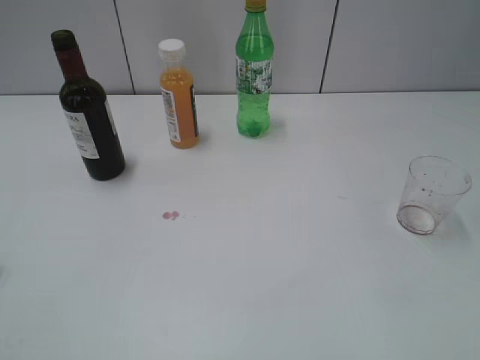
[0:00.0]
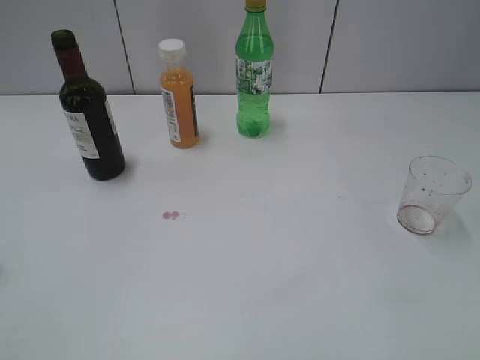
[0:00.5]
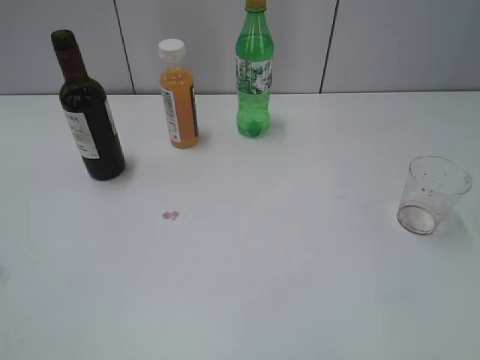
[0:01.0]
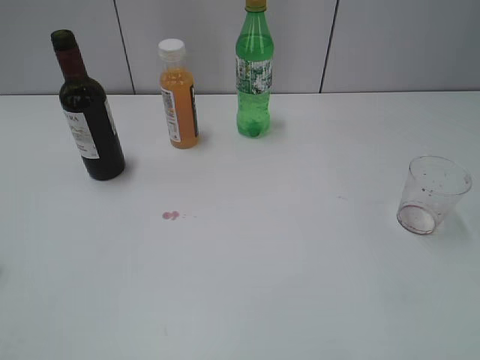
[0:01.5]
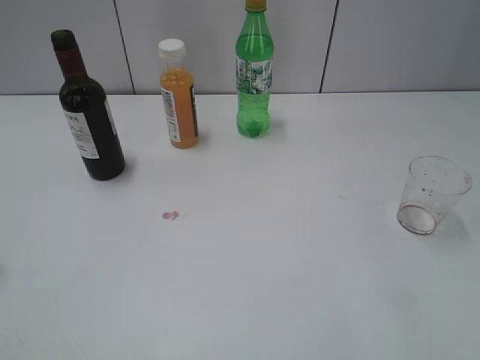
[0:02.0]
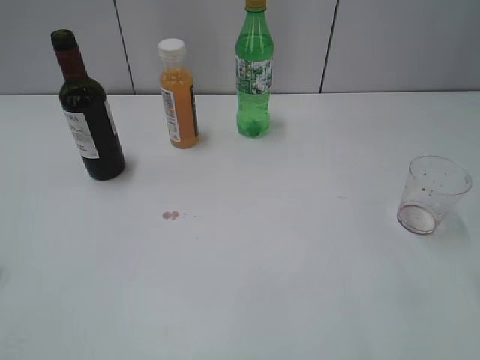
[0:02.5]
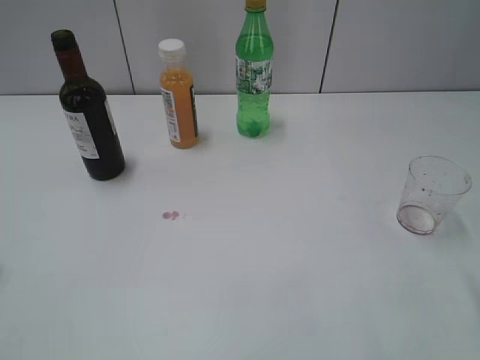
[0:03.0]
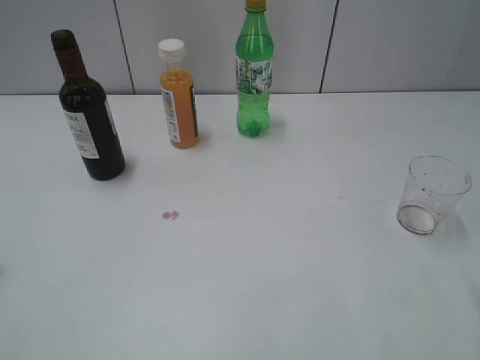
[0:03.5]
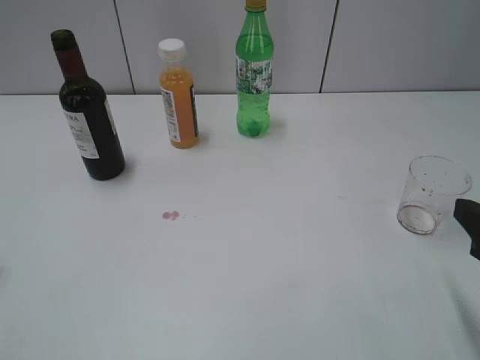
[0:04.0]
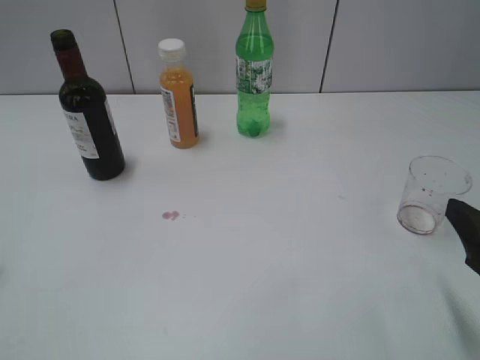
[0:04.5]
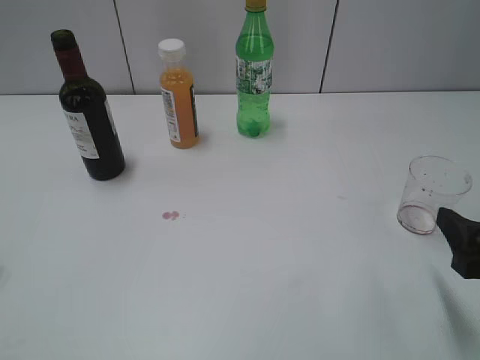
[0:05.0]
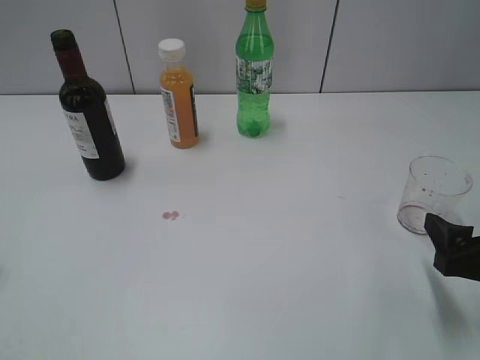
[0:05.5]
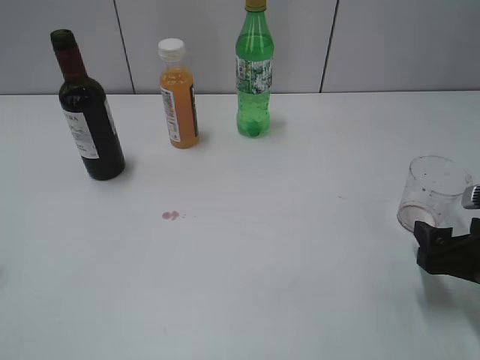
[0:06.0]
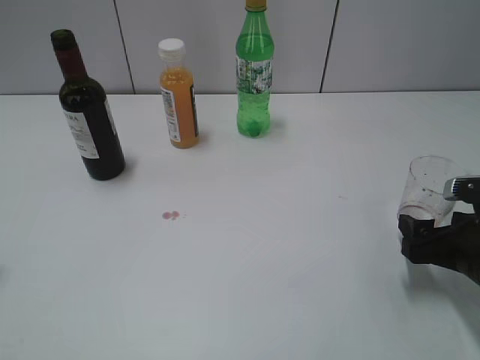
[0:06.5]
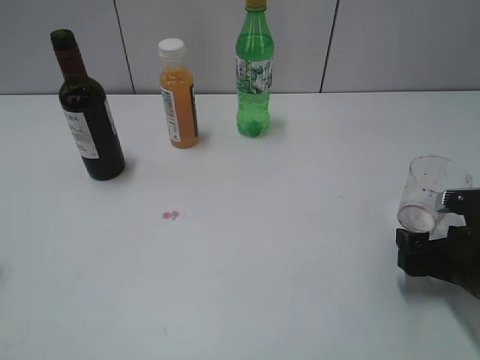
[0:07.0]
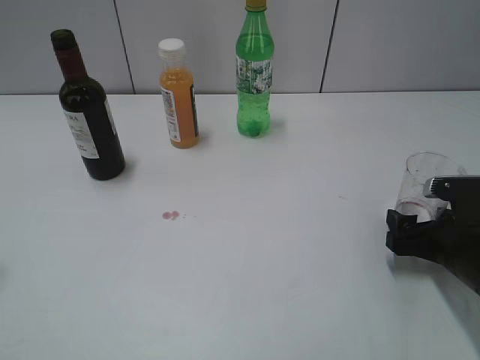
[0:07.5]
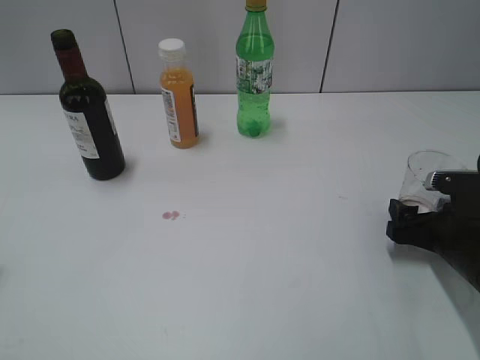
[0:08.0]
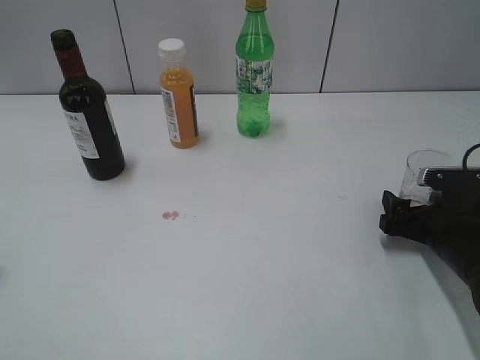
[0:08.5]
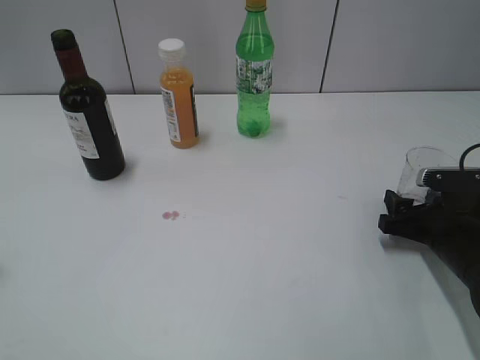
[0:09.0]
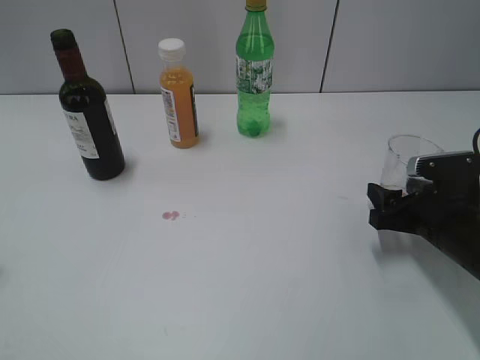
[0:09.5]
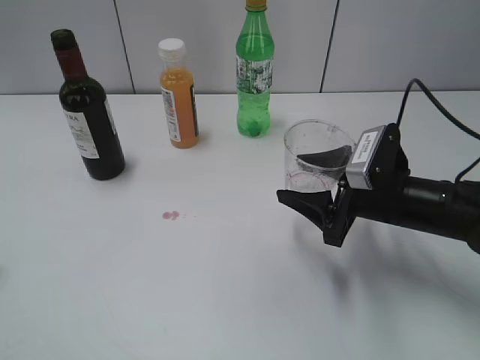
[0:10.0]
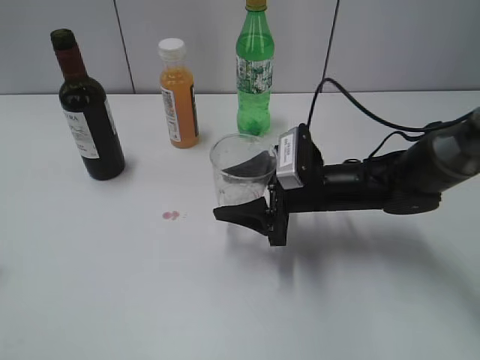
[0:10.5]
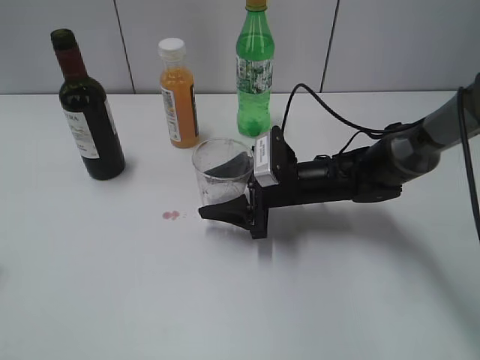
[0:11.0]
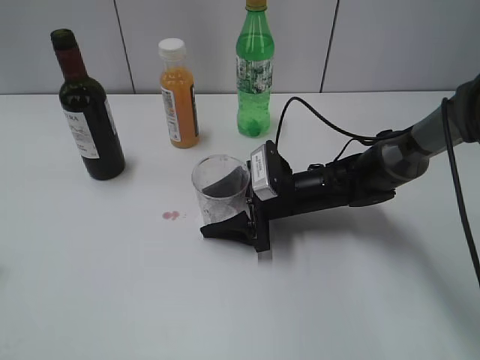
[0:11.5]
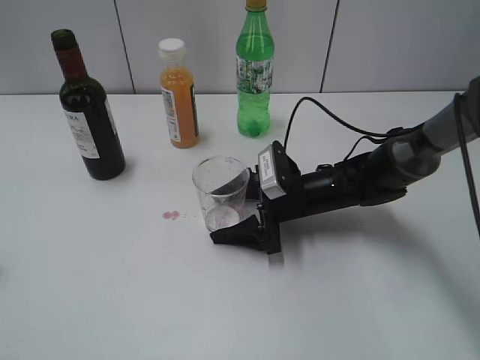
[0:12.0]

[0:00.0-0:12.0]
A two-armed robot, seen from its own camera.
Step, 0:01.0 to 0:09.0: Grasp the transparent cup with right gripper.
0:02.0 to 0:04.0: The right gripper moves downward, about 10 cm.
0:04.0 to 0:06.0: The right gripper is displaced downward by roughly 10 cm, and opens.
0:06.0 to 0:08.0: The right gripper is displaced forward by some 5 cm.
0:08.0 to 0:10.0: The right gripper travels to the left and upward by some 10 cm, and closes its fingers.
0:10.0 to 0:12.0: The right gripper is displaced to the left, downward and forward by roughly 15 cm, and opens its fingers.

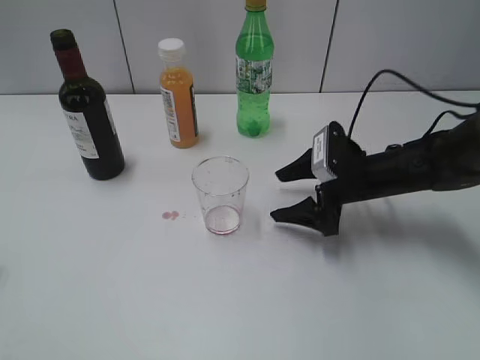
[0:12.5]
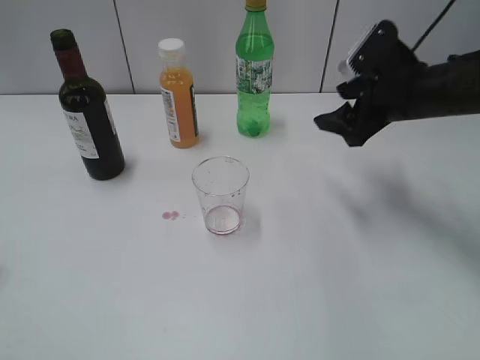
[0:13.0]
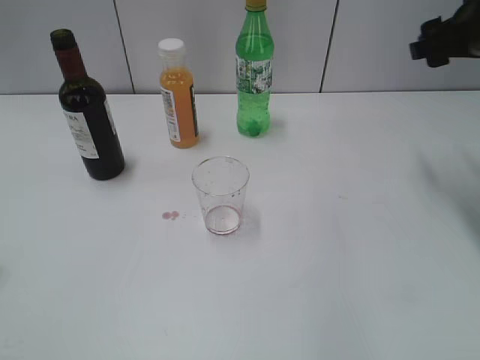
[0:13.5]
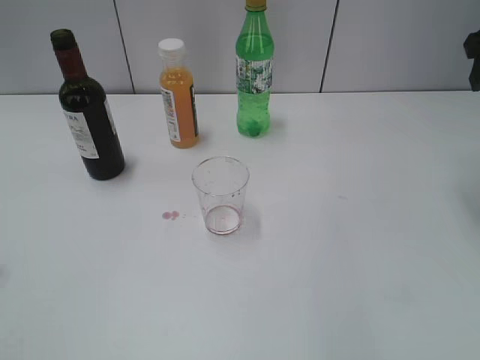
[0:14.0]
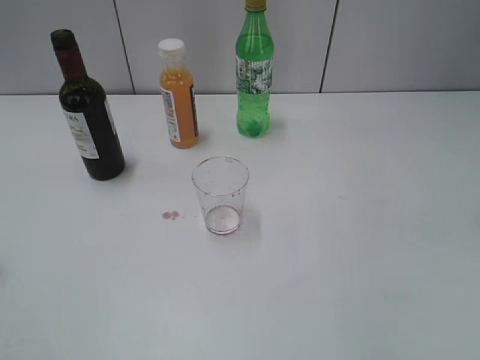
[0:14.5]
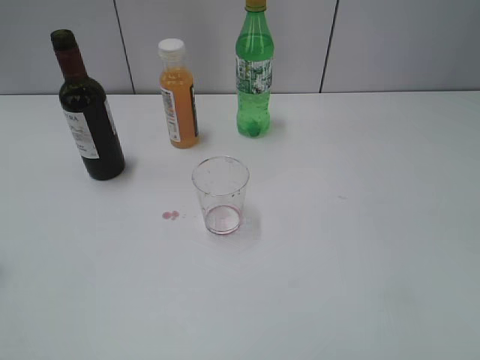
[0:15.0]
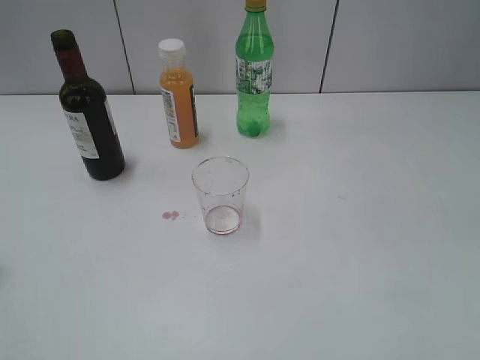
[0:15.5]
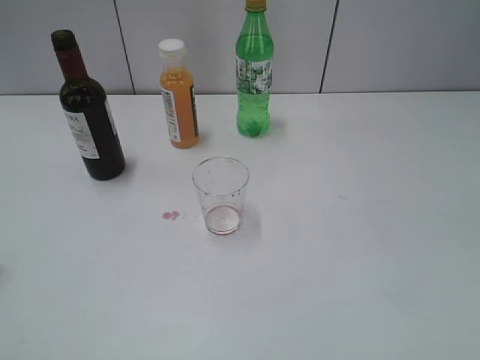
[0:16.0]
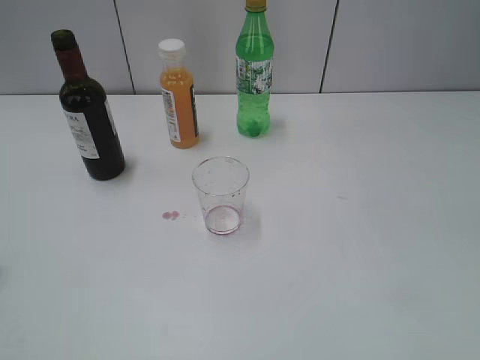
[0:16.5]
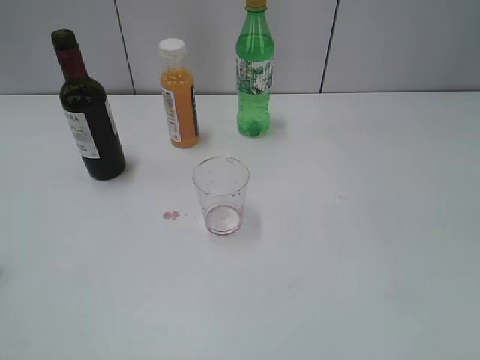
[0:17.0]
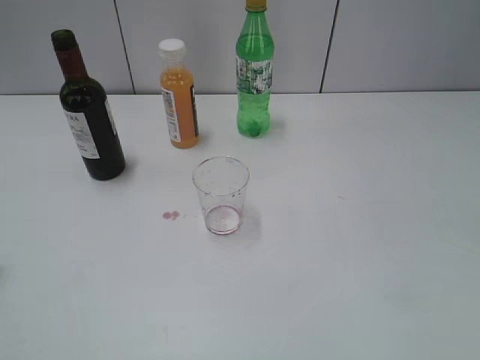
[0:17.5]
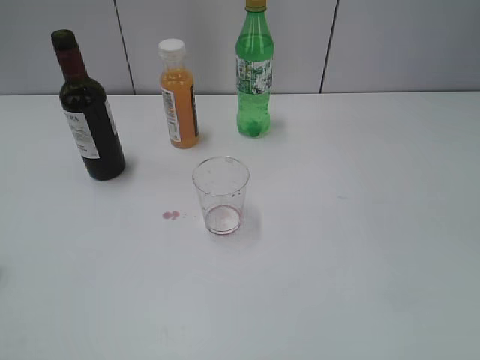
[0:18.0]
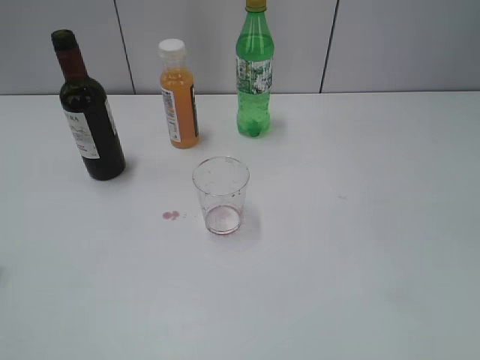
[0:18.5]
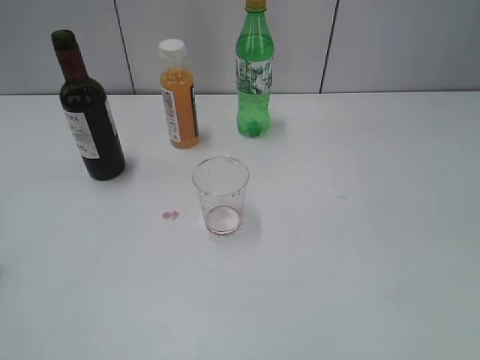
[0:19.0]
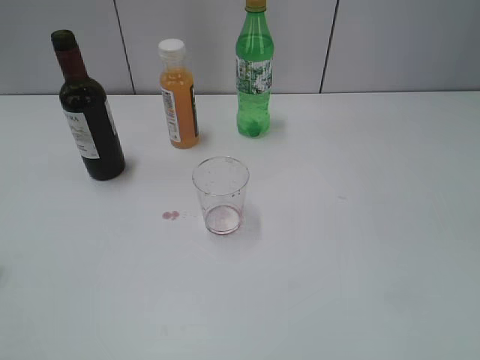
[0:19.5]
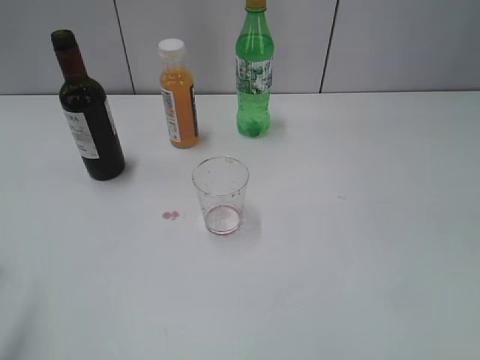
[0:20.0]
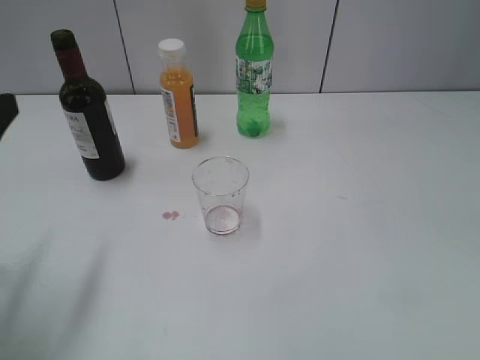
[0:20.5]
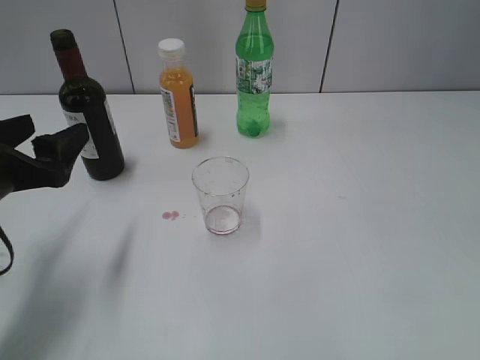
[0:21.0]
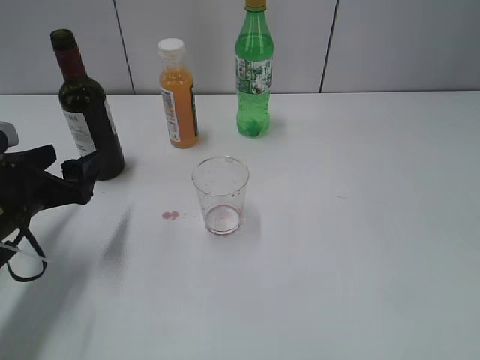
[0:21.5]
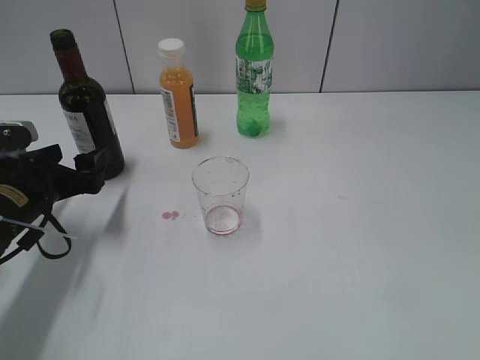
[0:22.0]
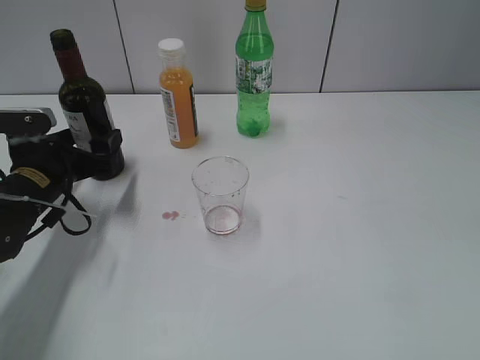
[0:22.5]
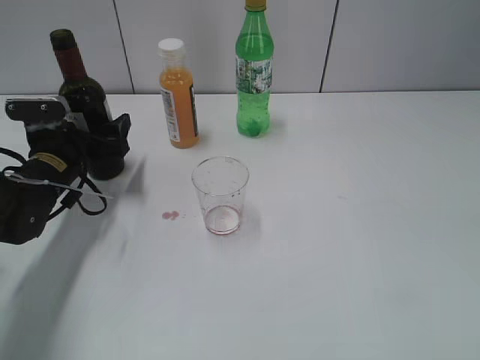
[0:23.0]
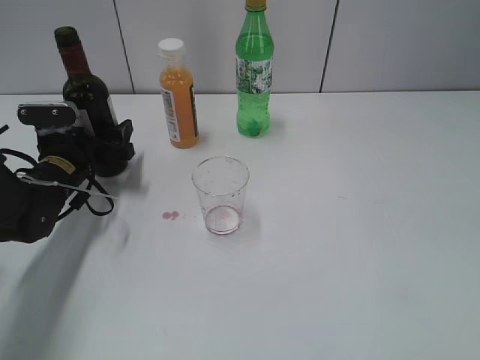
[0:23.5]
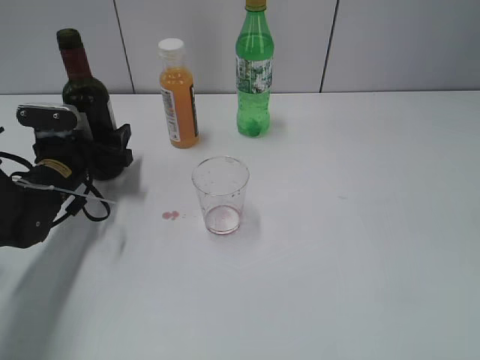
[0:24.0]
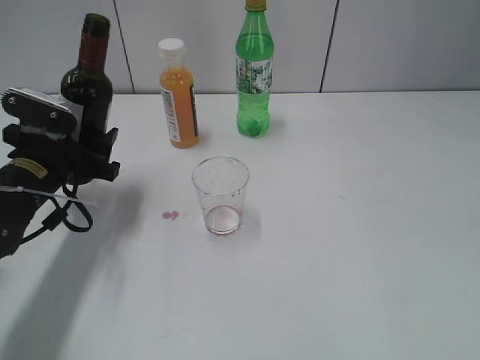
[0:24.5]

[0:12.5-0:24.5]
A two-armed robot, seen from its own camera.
Step, 0:12.5 to 0:23.5: Grasp the bottle with red wine with left gripper.
0:12.5 to 0:14.5: The right gripper shifts about 30 cm upward and to the right, and closes up.
0:18.5 to 0:20.5: The left gripper travels forward by about 20 cm, and opens.
0:20.5 to 0:22.5: The left gripper is displaced downward and forward by roughly 20 cm.
0:22.5 to 0:24.5: The left gripper closes.

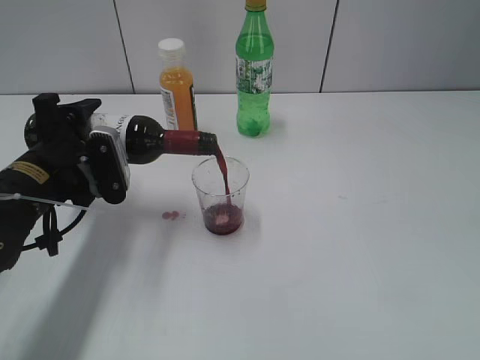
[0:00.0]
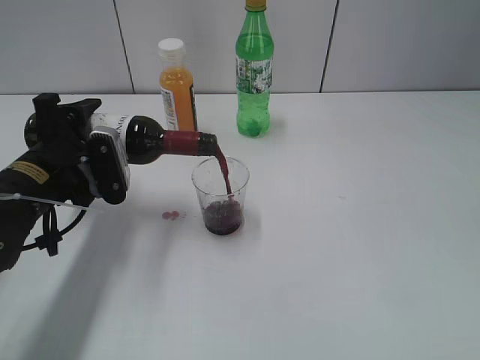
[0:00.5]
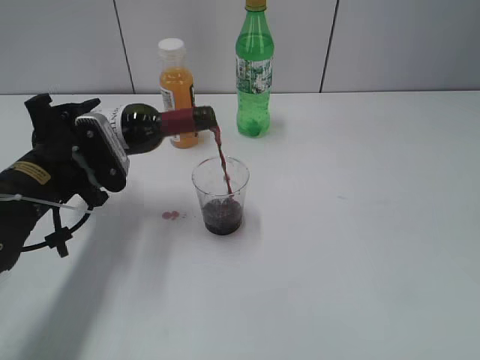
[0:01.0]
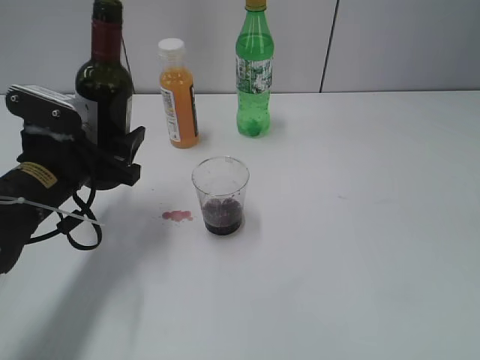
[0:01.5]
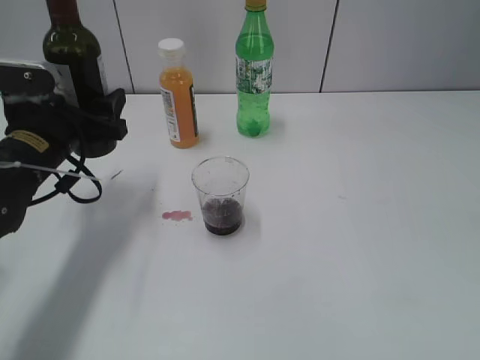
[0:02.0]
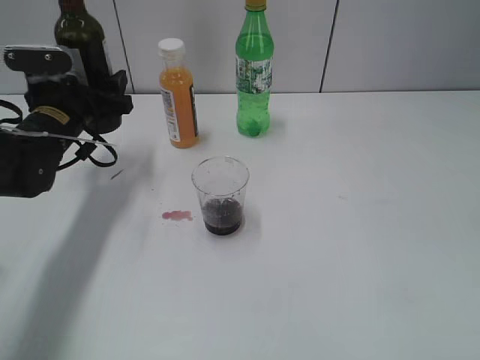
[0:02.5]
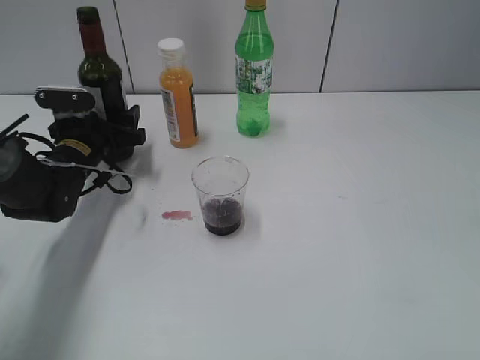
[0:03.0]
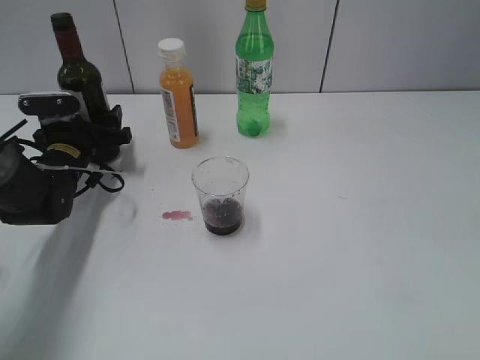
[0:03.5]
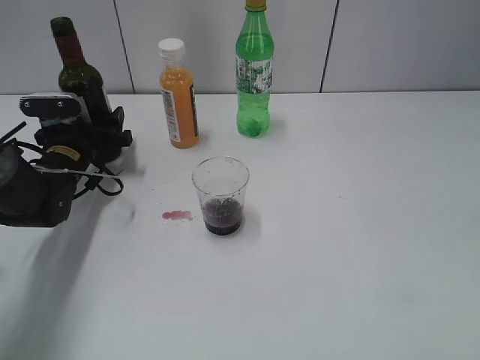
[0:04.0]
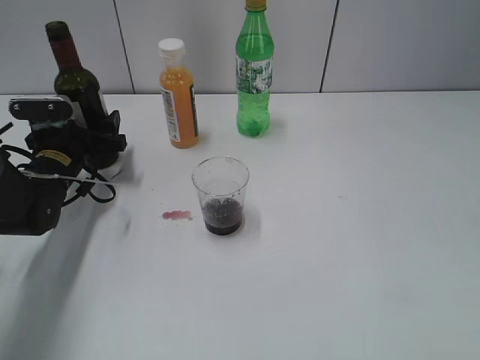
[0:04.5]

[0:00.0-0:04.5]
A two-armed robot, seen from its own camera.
0:02.0 to 0:04.5: The left gripper shifts about 10 cm downward and forward.
